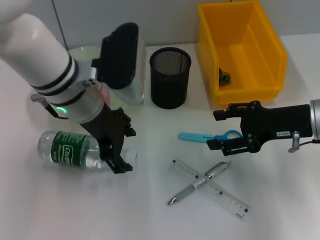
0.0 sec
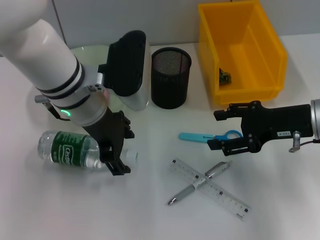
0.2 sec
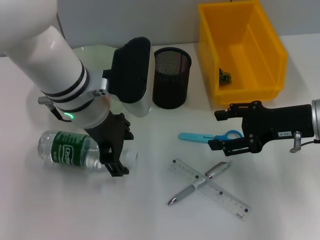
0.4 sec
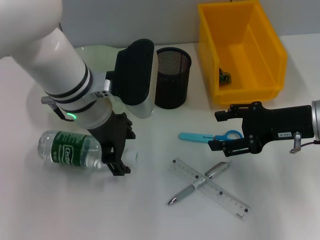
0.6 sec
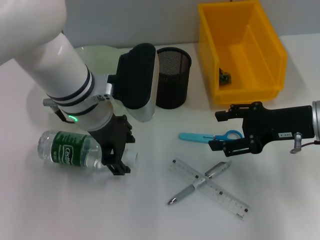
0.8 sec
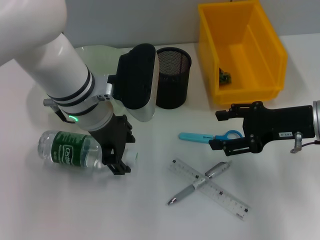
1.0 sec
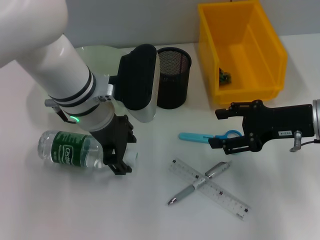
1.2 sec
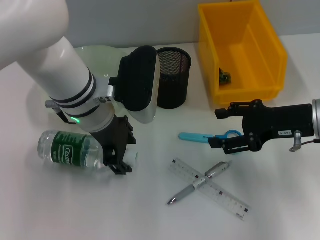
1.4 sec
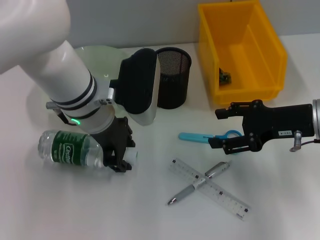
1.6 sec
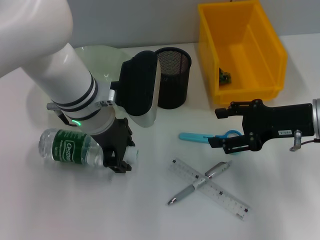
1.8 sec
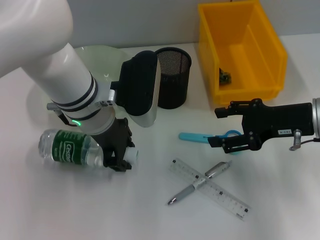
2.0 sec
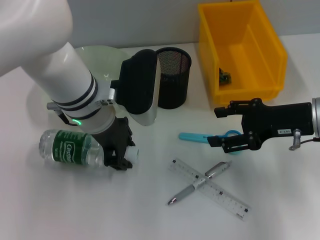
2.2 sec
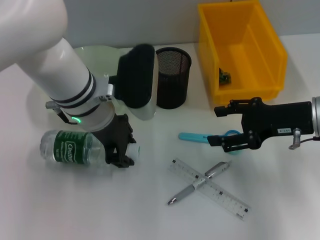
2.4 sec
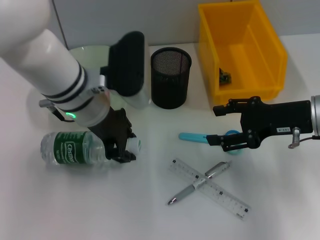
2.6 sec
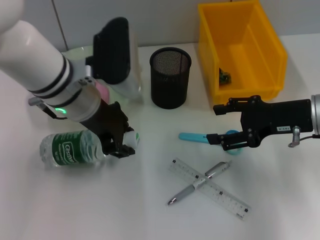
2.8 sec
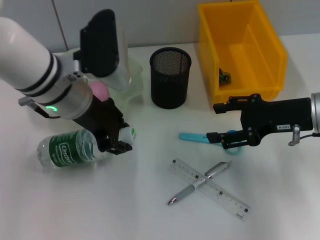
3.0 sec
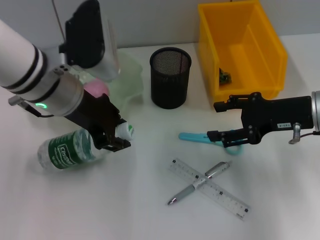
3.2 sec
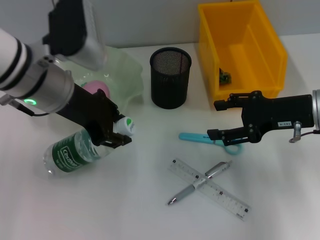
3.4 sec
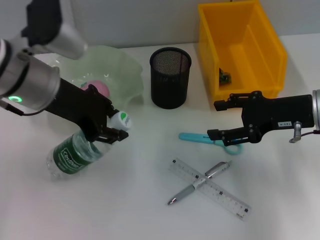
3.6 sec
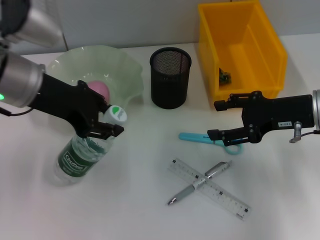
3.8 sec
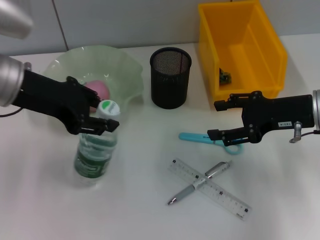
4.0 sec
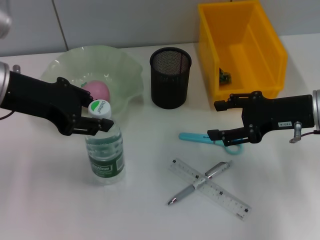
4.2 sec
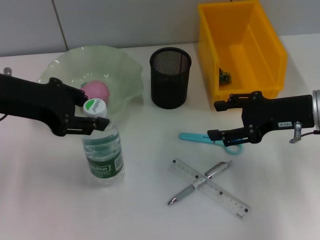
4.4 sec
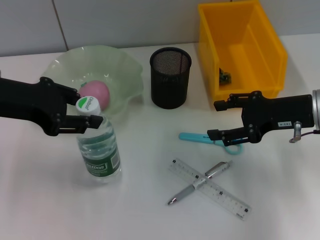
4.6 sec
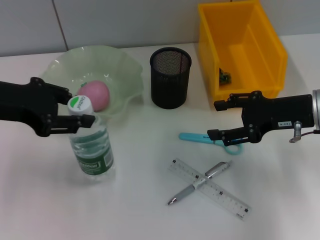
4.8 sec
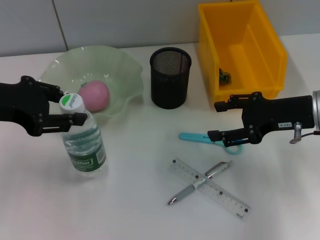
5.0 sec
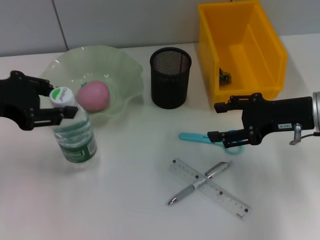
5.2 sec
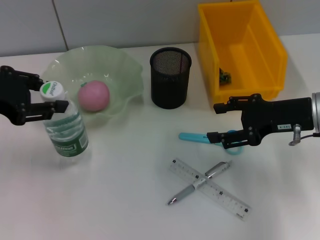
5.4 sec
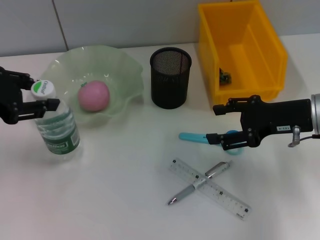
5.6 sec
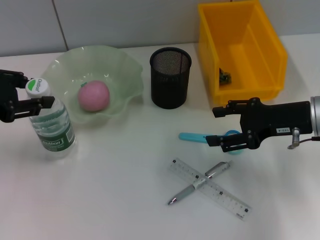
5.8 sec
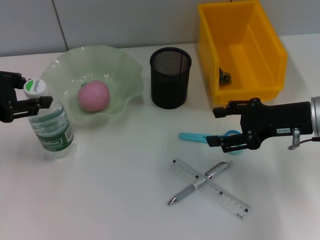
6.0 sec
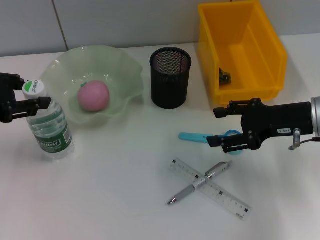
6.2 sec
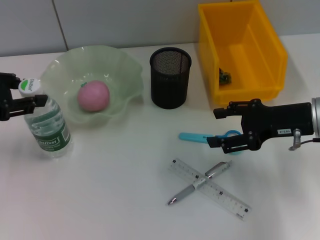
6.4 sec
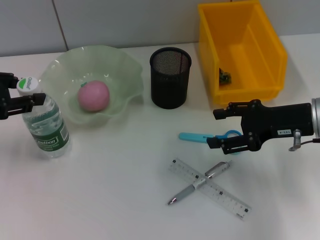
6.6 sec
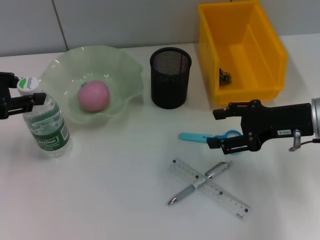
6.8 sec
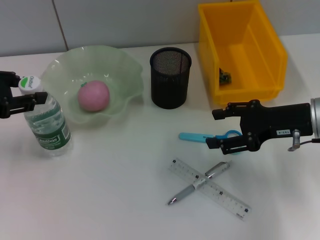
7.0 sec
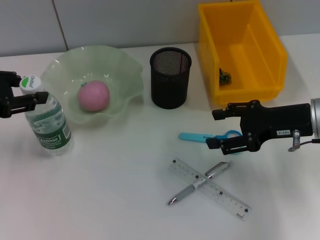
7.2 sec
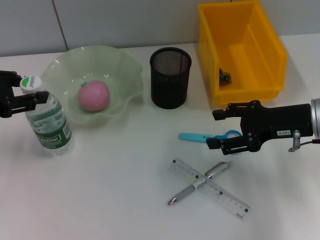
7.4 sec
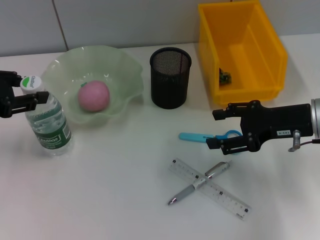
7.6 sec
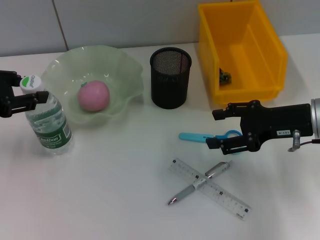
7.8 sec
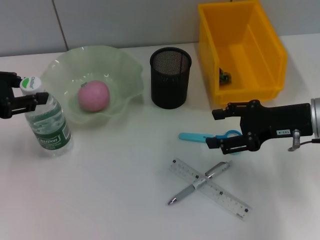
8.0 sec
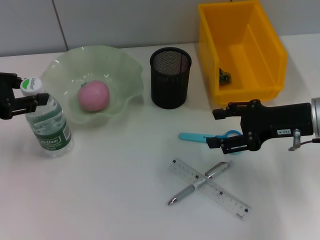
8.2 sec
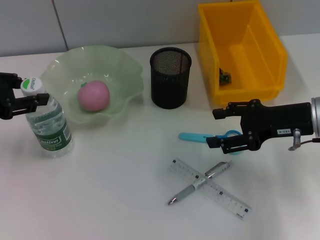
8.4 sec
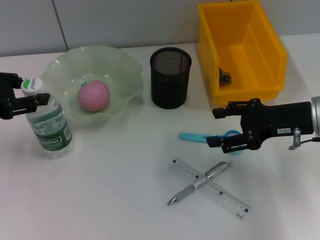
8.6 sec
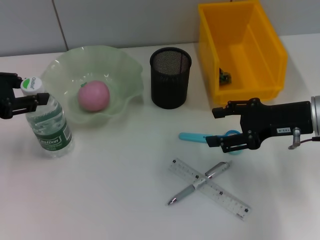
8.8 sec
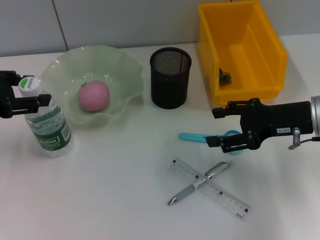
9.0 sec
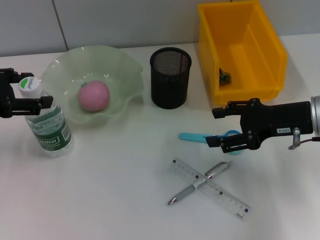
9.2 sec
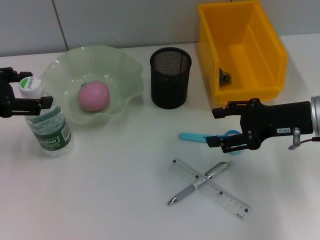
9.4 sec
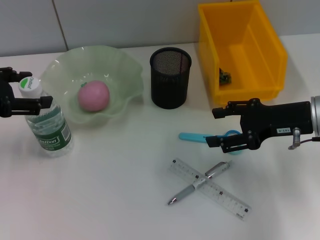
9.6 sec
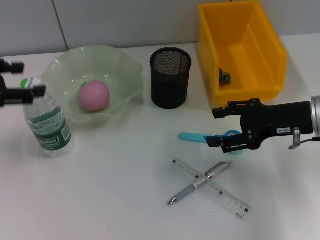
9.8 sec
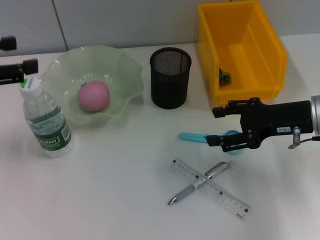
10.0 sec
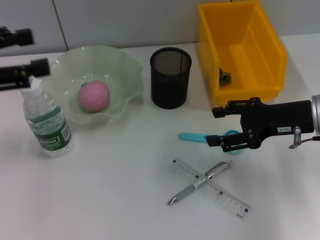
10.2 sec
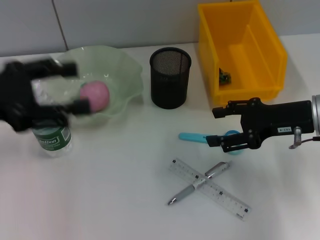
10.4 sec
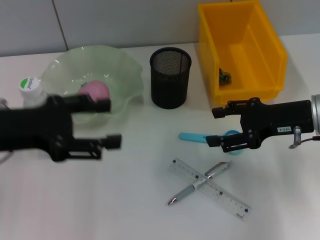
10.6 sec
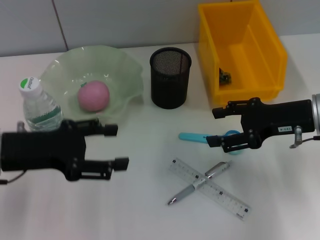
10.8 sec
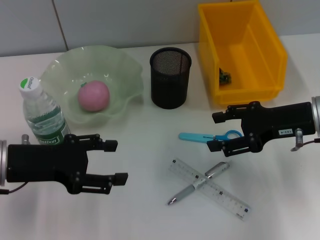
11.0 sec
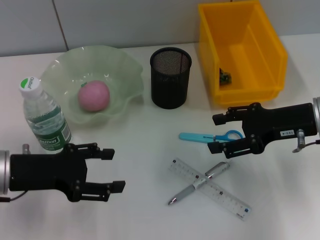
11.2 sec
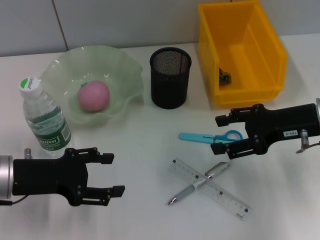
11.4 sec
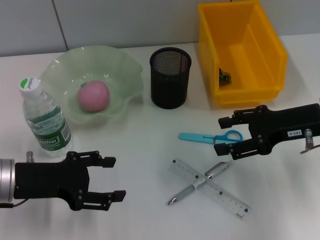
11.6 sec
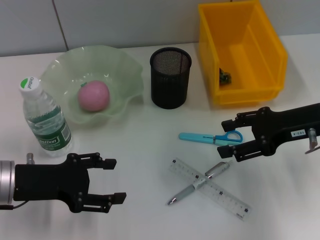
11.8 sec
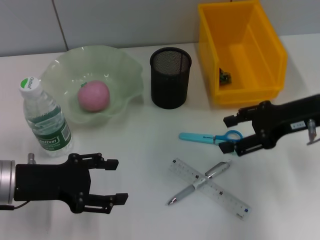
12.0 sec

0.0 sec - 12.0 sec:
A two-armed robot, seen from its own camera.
Step, 0.0 sec - 2.0 sec: Grab the water bottle with the left hand.
Step, 2.4 sec - 9.2 sec: Place the water bottle on the table with the left hand.
0.0 sec - 1.6 sec: The grippers stay close to where they were, moving slightly.
1.6 sec - 3.0 sec: The left gripper closes its fingers.
3.0 sec - 4.4 sec: The left gripper travels to the left by some 10 cm.
4.4 sec - 6.0 sec: The left gripper goes some 5 cm to the left.
6.0 sec - 7.6 sec: Neither gripper changes place.
7.6 sec - 9.0 sec: Both grippers stay about where they are.
9.0 sec - 10.4 sec: The left gripper ends up some 5 cm from where it was, and opens its fingers.
10.4 sec - 12.0 sec: The left gripper is displaced downward by some 10 cm.

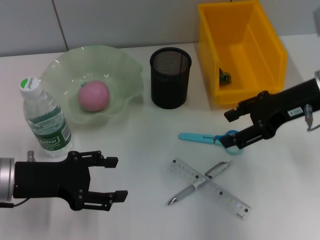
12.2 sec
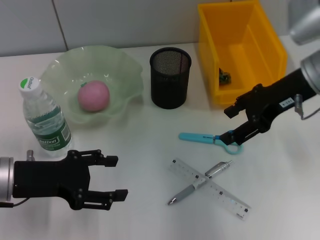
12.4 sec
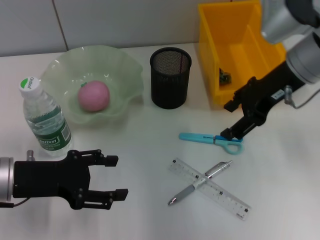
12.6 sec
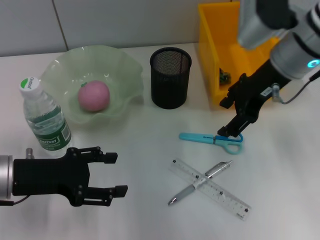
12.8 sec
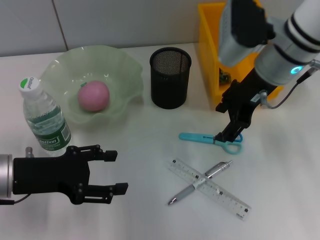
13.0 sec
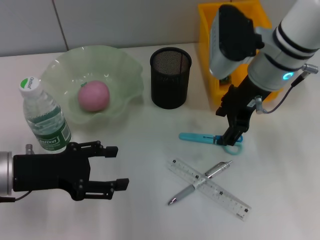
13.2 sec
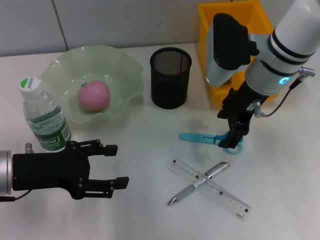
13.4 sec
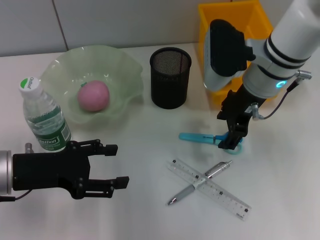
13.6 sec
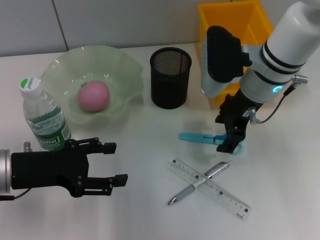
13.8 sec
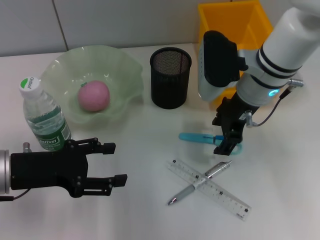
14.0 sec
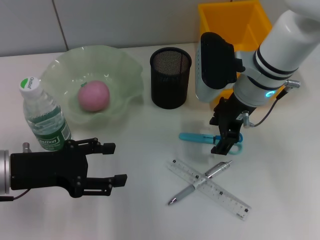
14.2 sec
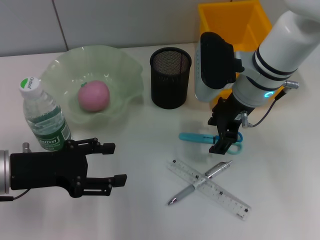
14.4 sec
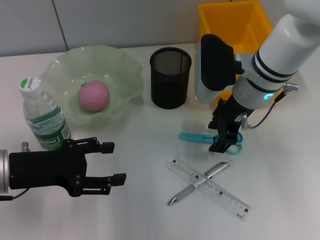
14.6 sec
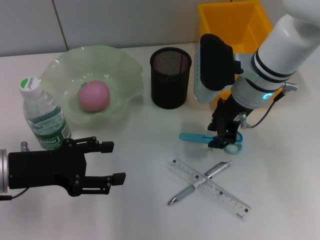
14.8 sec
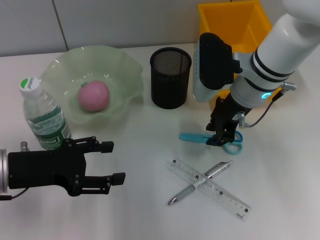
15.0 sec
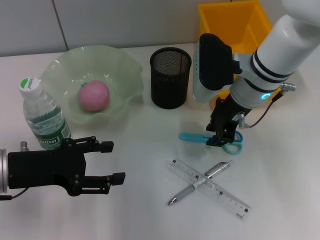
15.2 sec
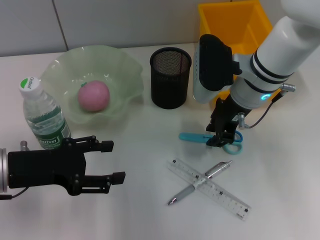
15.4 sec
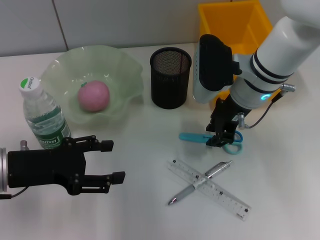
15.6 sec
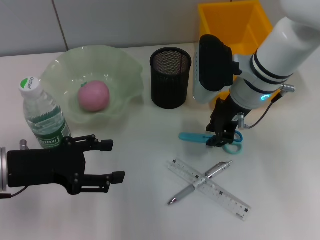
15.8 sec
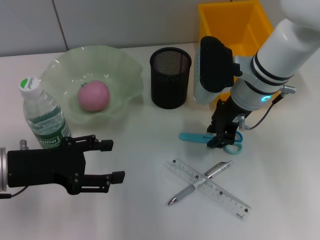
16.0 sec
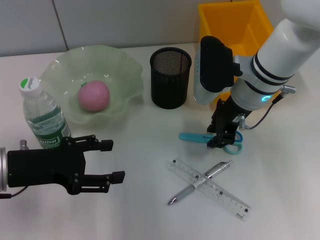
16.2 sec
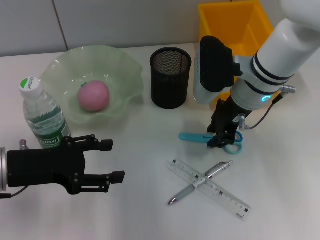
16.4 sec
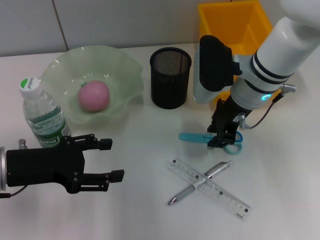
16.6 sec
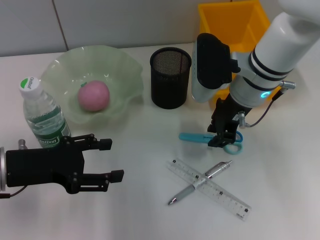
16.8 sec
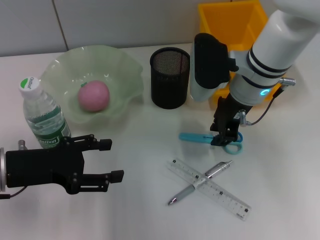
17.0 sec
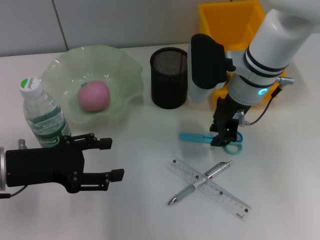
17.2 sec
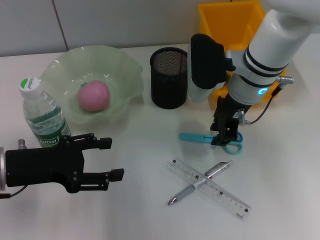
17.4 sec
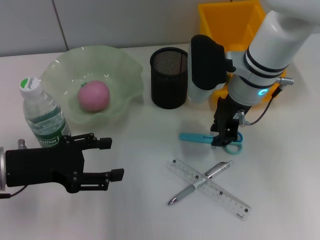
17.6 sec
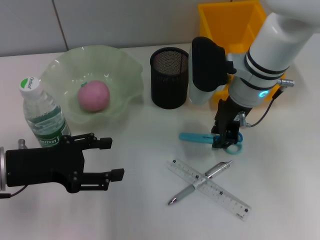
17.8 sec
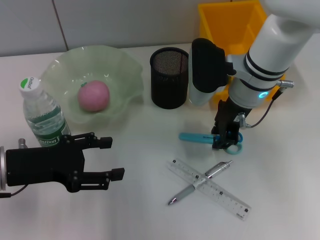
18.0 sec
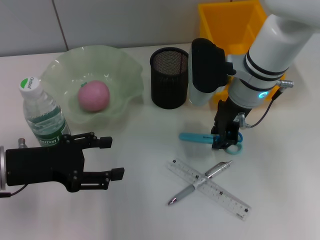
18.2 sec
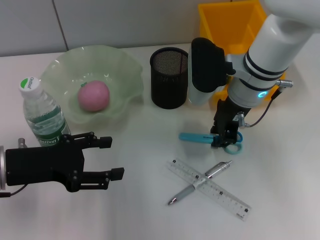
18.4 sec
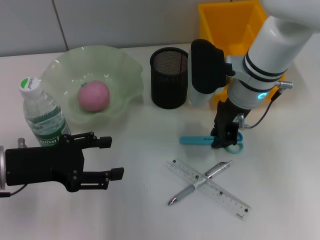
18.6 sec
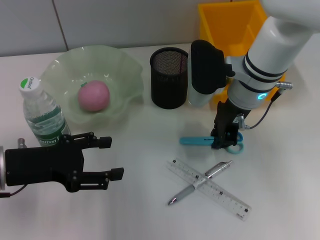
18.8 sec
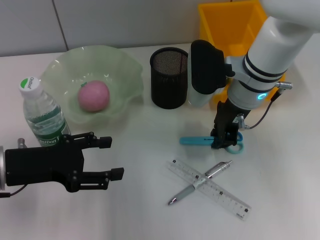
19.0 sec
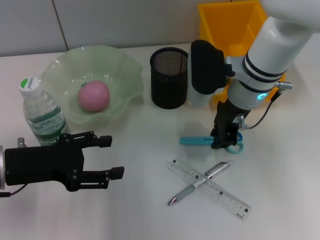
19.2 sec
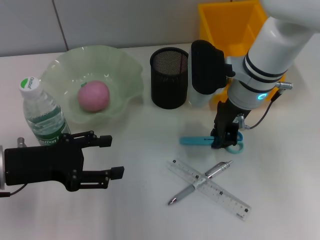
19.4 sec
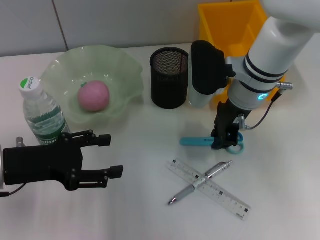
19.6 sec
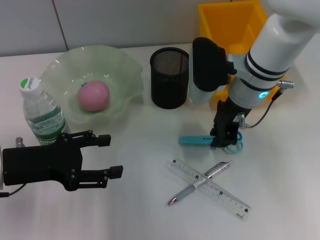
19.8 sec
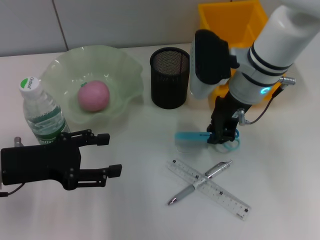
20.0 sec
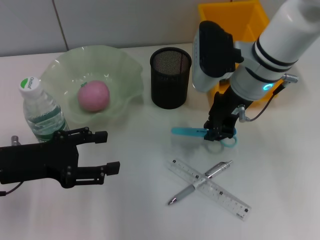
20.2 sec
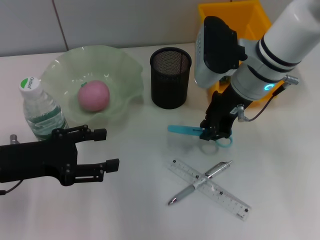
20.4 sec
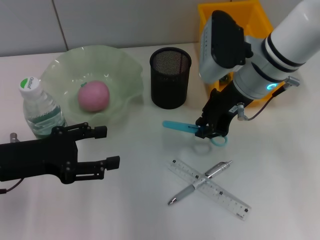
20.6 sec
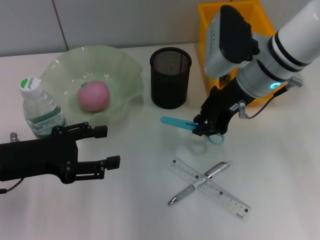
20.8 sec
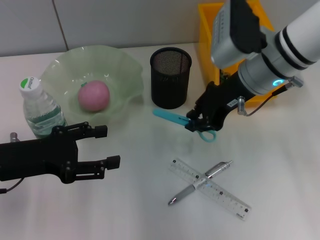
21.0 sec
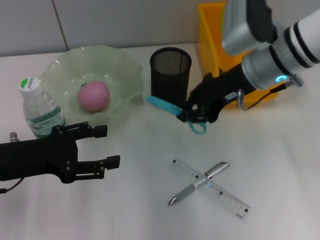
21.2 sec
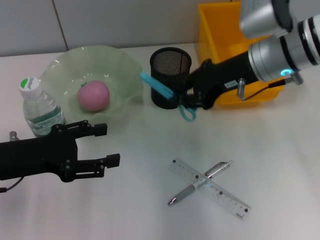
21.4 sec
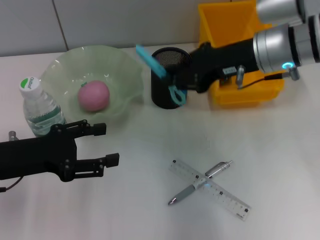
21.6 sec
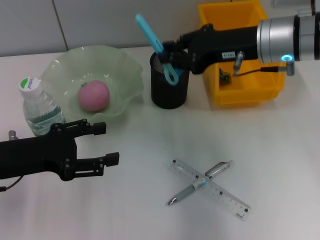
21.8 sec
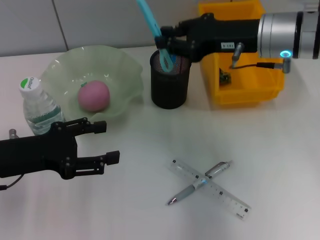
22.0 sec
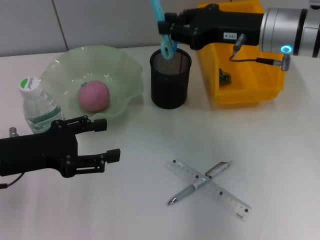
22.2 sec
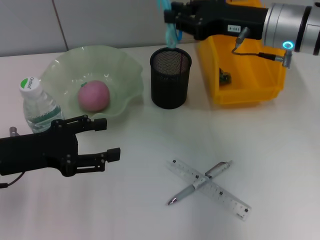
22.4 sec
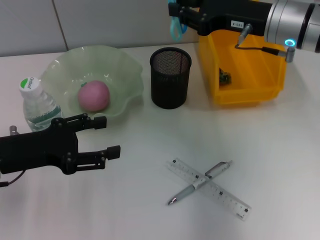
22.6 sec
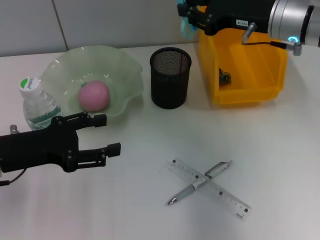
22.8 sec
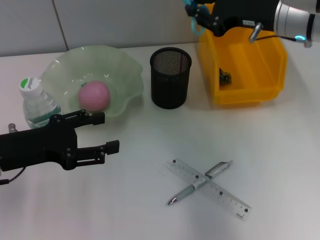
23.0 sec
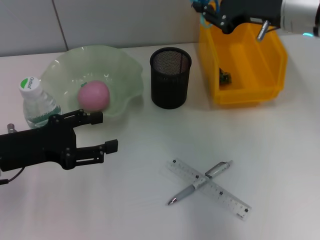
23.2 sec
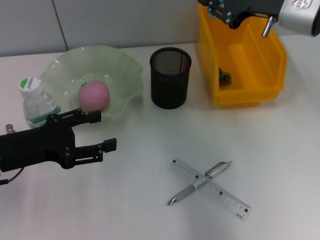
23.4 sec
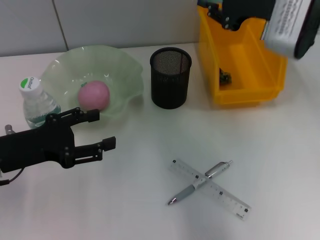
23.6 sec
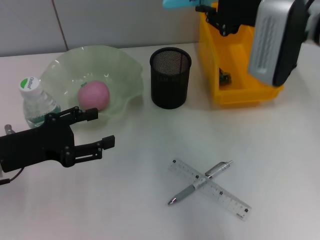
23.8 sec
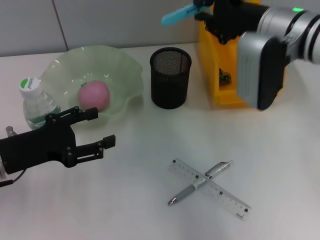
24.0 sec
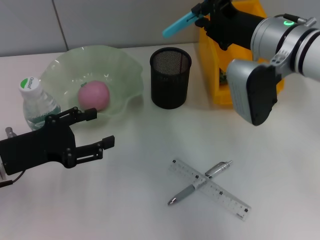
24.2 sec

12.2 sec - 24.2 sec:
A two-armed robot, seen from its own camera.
Step, 12.2 sec - 19.6 sec: Grab the blue scissors with the right hand.
12.2 sec - 13.8 sec: The right gripper moves to the left and forward, some 10 cm.
13.8 sec - 15.2 sec: The right gripper closes its fingers.
15.2 sec - 16.6 sec: The two grippers keep their place.
16.6 sec - 18.2 sec: The grippers make only small movements.
18.2 sec - 19.8 sec: Both grippers stay put.
19.8 sec - 21.2 sec: The right gripper ends up approximately 5 cm from where it was.
